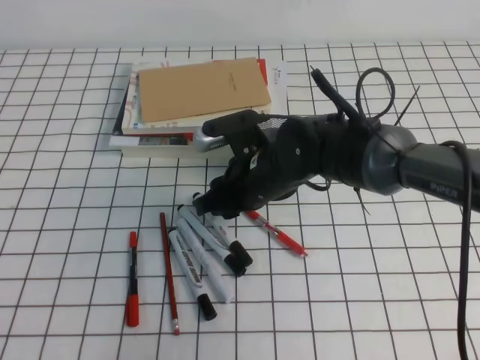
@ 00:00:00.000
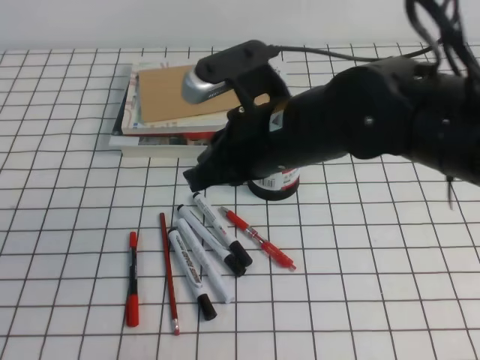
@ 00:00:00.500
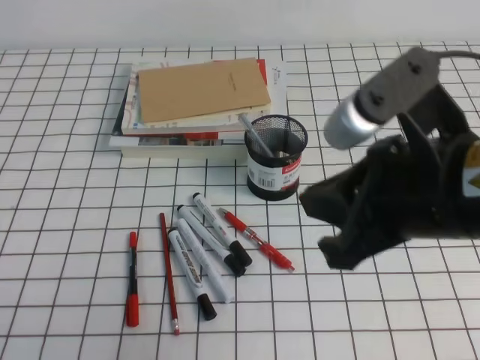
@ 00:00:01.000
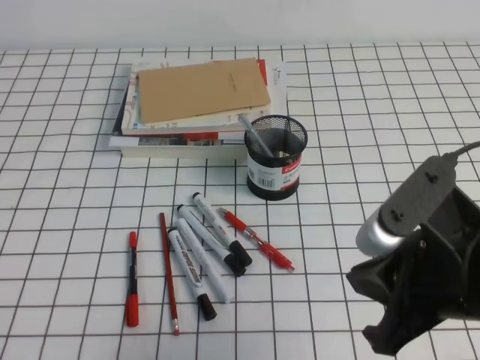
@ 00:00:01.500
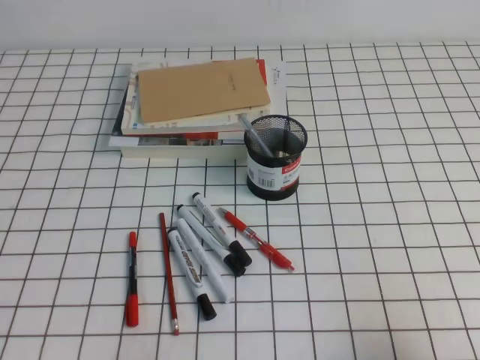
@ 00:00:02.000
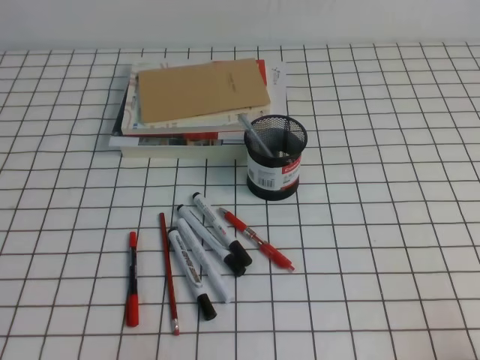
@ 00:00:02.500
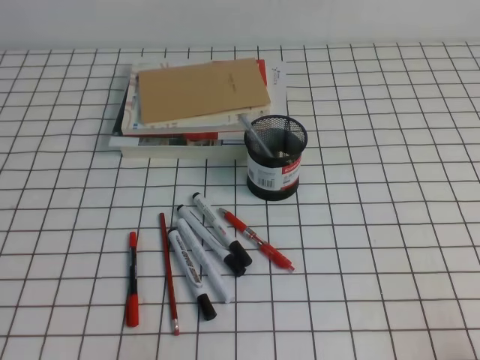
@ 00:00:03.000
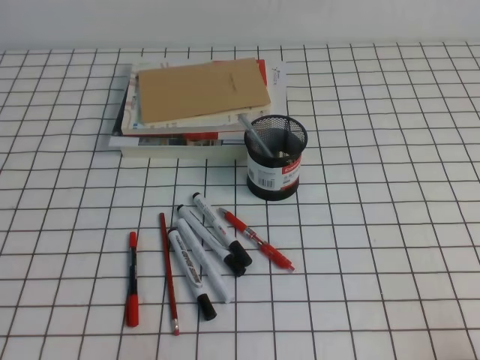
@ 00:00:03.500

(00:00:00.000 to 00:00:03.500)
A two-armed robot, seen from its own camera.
Step, 00:00:00.000 - 00:00:03.500: Pick up the pen from the pen holder.
00:00:00.000 - 00:00:02.000: The right gripper shifts approximately 35 cm to the right and backward, and closes its fingers.
00:00:02.000 - 00:00:03.500: The right gripper moves downward and backward, some 10 cm.
